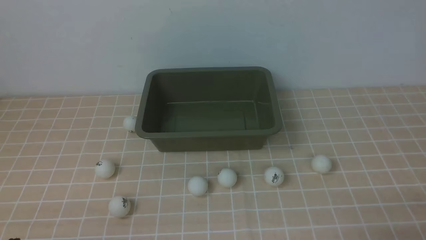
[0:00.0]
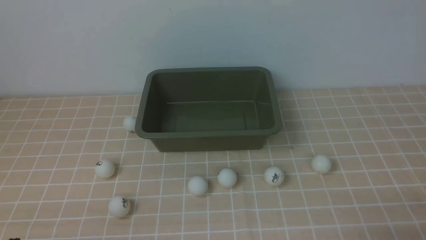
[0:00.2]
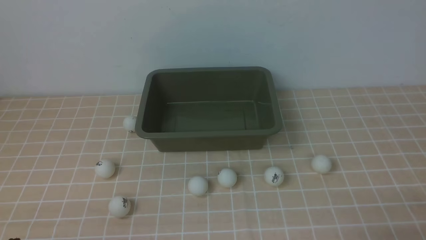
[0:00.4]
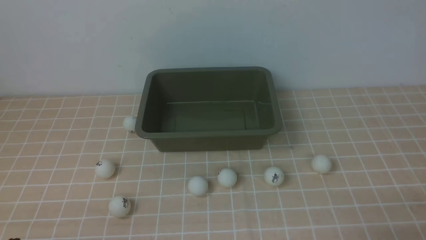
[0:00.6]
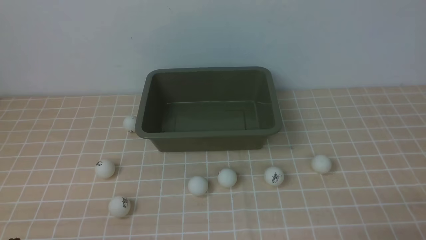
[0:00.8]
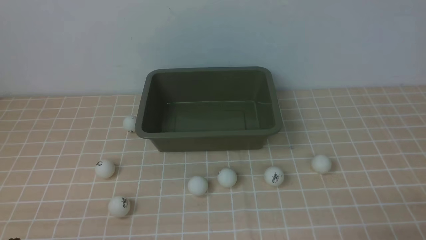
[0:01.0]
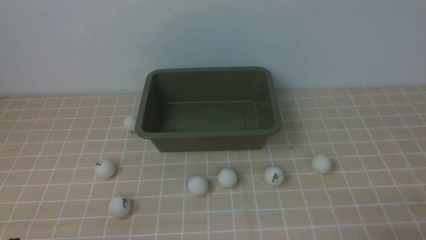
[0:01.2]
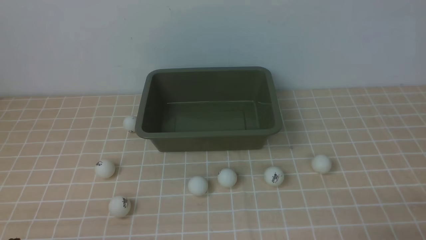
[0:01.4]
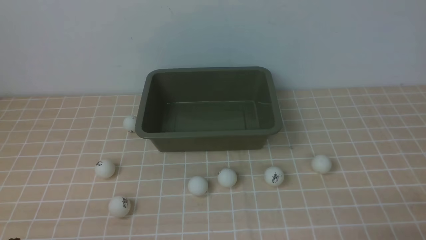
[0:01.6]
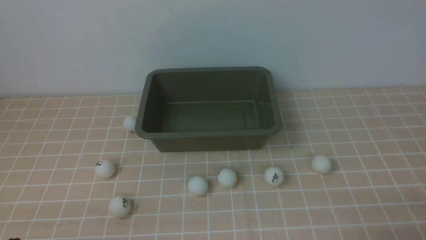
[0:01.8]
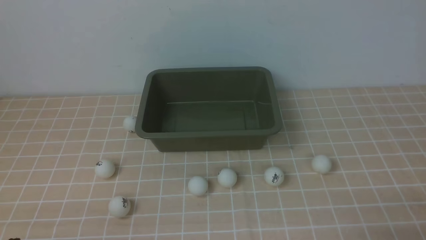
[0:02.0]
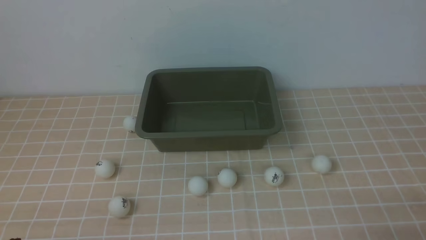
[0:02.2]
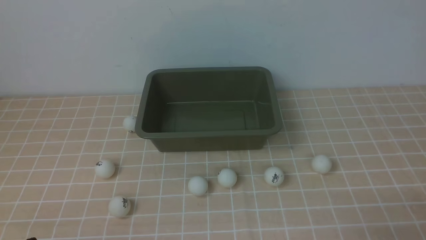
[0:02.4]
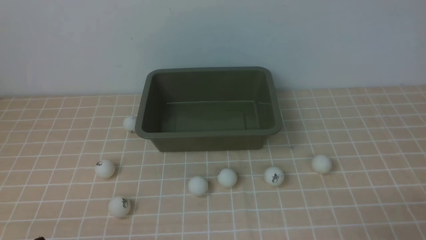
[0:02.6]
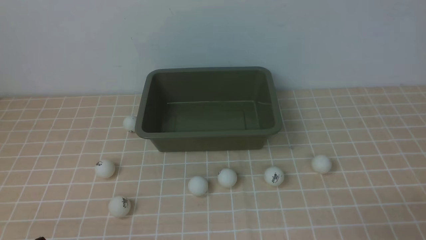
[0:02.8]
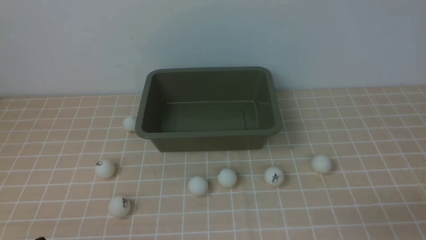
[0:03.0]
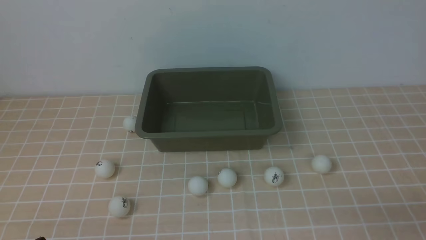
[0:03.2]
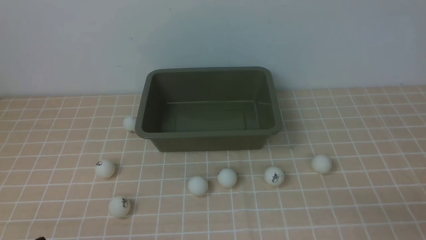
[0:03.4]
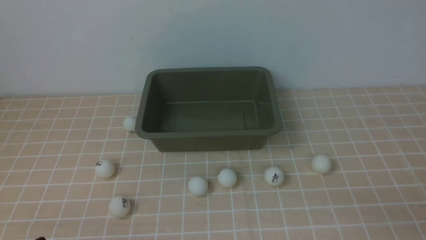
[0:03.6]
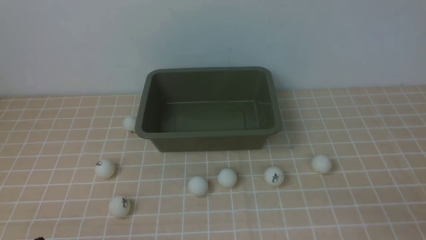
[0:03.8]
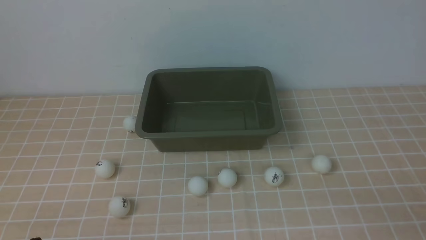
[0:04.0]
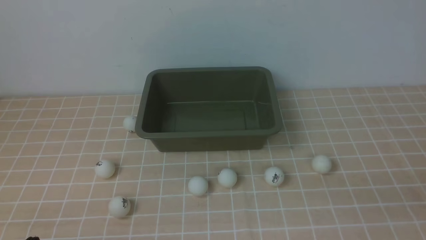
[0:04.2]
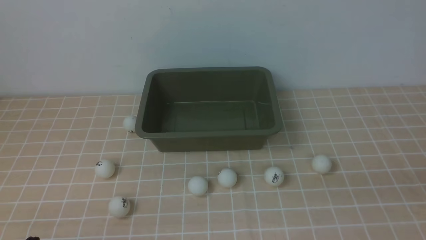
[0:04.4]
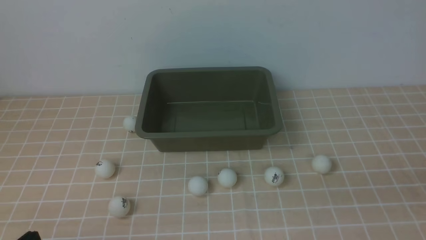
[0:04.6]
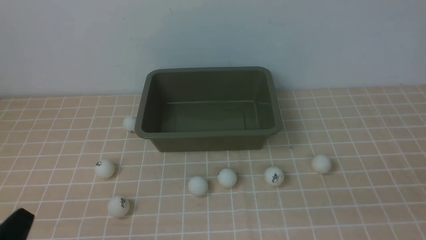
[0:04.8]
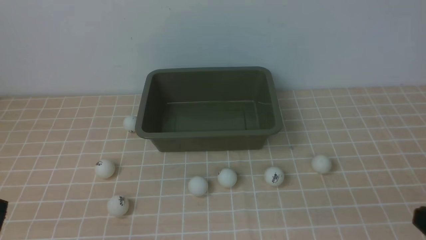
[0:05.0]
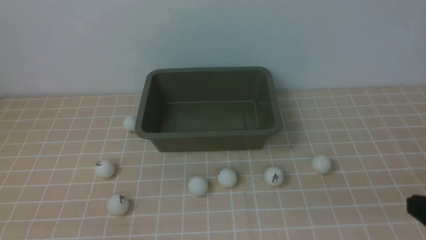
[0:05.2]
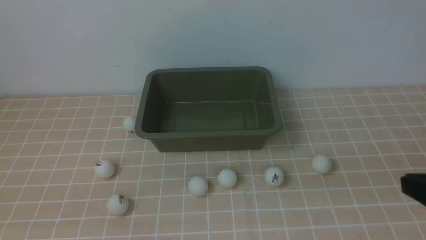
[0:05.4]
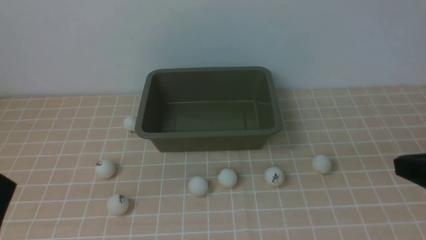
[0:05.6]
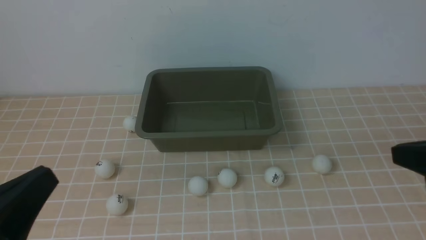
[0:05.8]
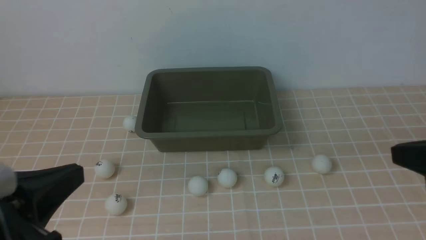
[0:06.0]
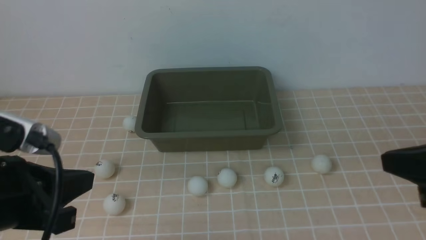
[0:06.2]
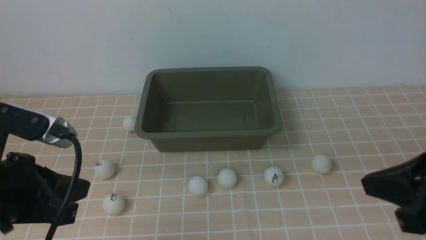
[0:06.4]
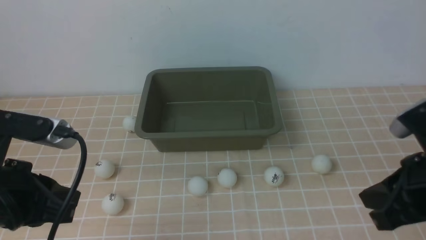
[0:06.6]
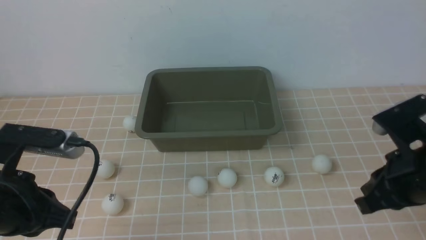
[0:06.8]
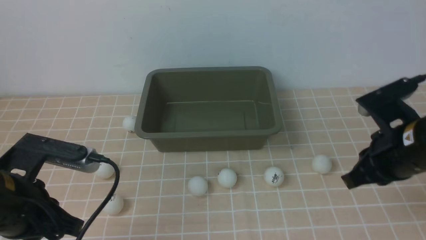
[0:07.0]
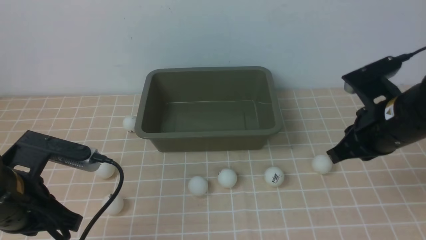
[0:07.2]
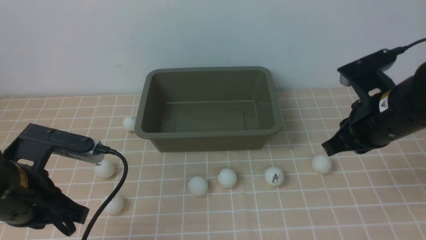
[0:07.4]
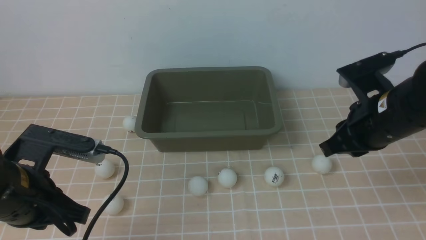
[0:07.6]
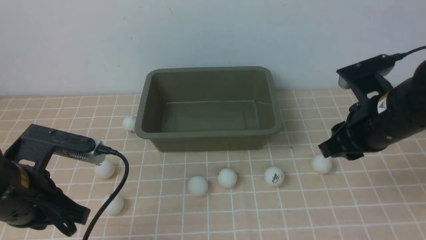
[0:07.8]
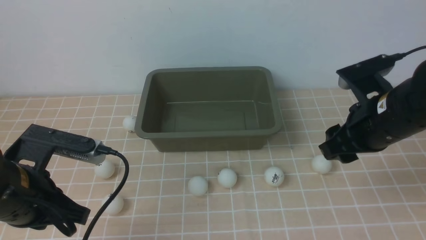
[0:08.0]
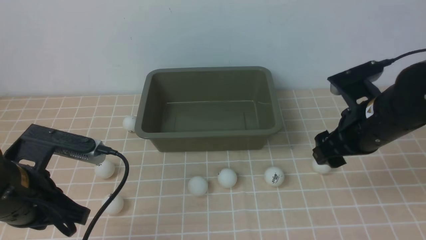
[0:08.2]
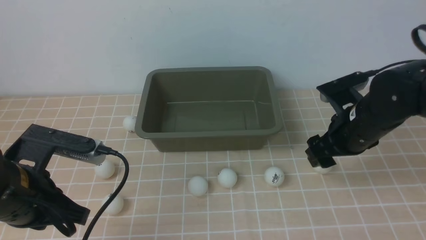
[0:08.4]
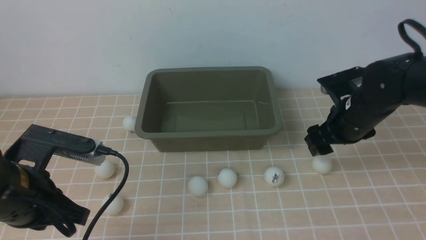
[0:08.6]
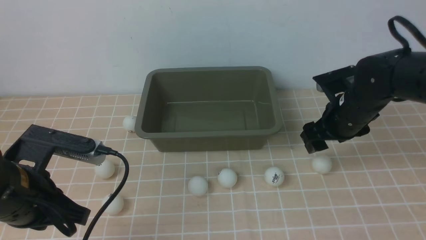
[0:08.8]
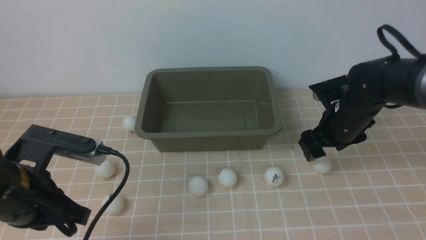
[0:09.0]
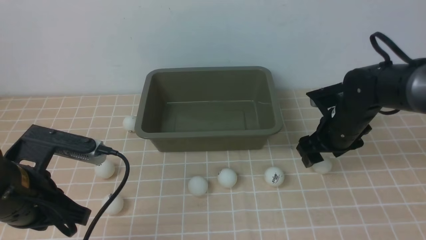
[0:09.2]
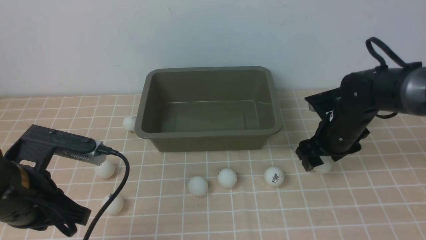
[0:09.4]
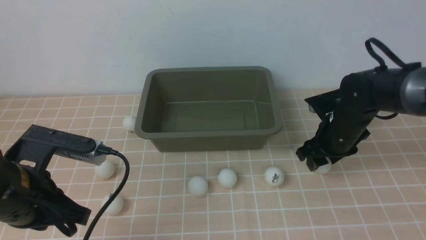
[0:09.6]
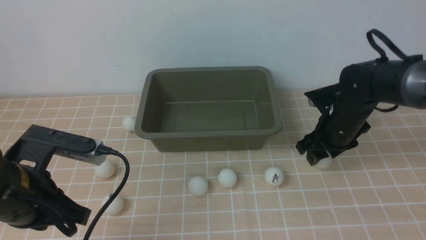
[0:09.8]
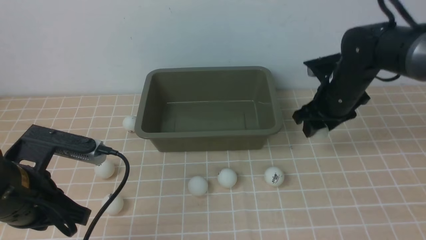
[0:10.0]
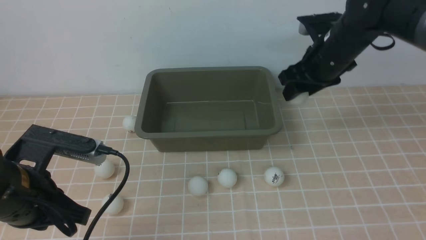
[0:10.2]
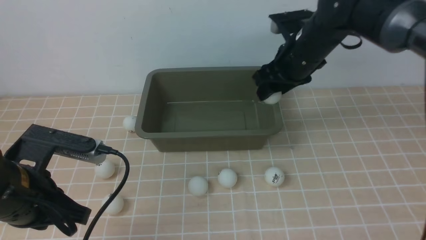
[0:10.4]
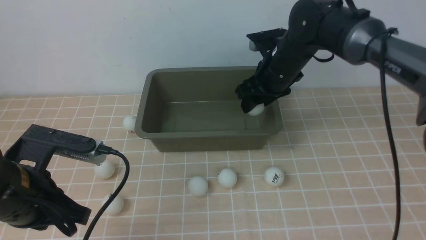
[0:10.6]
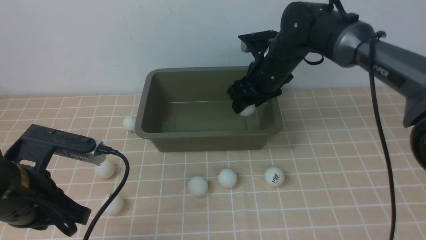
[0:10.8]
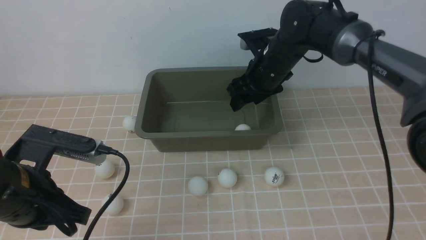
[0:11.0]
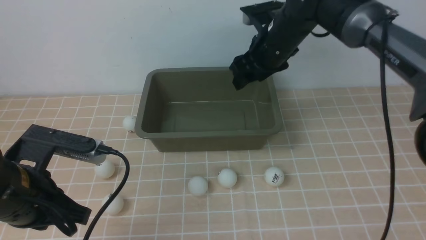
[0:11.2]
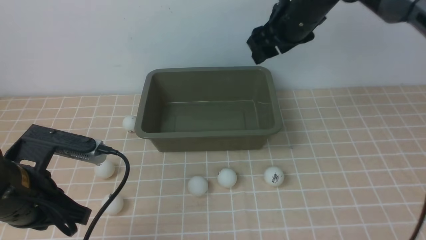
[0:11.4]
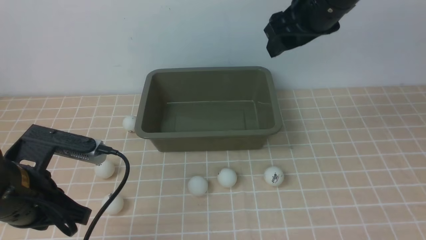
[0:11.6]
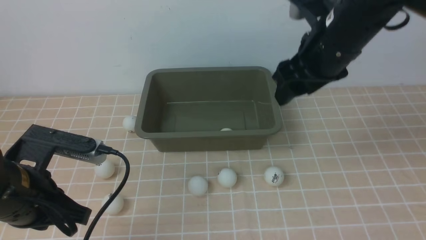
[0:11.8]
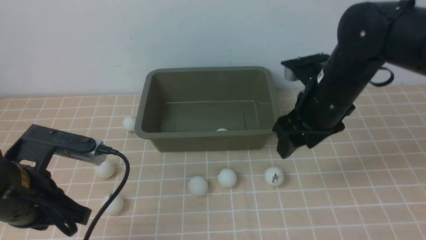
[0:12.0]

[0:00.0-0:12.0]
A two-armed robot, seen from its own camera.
Step, 0:00.0 to 0:10.0: use the right arm to clamp the table tennis ball closest to it.
Step, 0:10.2 to 0:11.4: use the right arm to put the table tennis ball into the box.
0:00.0 to 0:01.6: Both grippers stay put.
0:04.4 to 0:06.0: The right gripper goes approximately 10 cm forward and upward; the left gripper moves upward, about 15 cm.
0:06.0 to 0:07.6: The left gripper is displaced forward and downward by roughly 10 cm, while the right gripper shifts approximately 15 cm forward, downward and to the left.
0:07.6 to 0:09.0: The right gripper goes some 15 cm forward and downward, and opens.
0:09.0 to 0:10.4: The right gripper shifts about 15 cm upward, to the left and forward.
0:10.4 to 0:12.0: The right gripper is displaced backward by approximately 10 cm, and reaches some 10 cm upward, then returns.

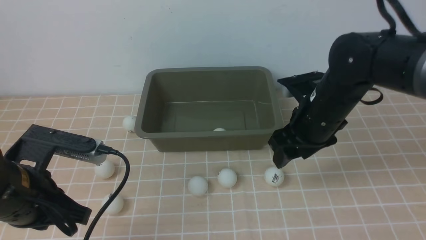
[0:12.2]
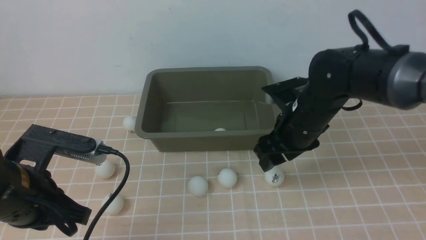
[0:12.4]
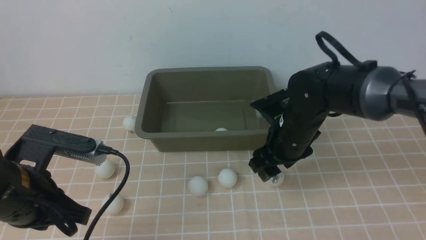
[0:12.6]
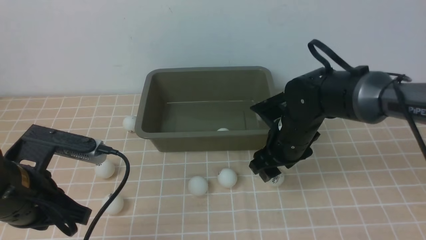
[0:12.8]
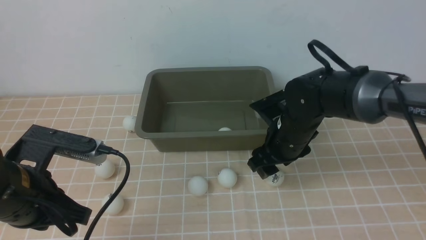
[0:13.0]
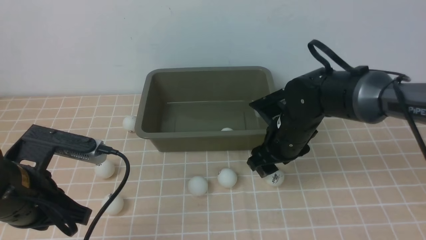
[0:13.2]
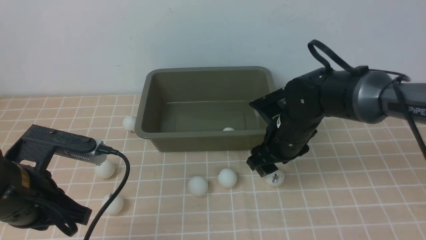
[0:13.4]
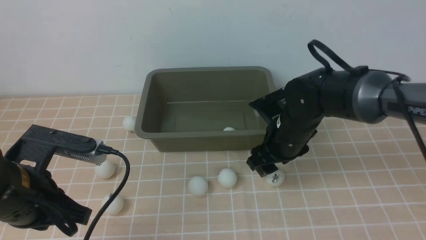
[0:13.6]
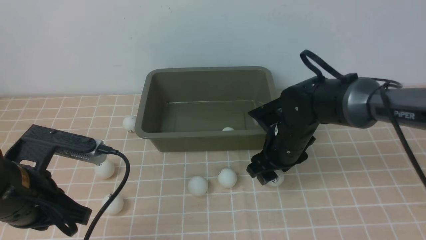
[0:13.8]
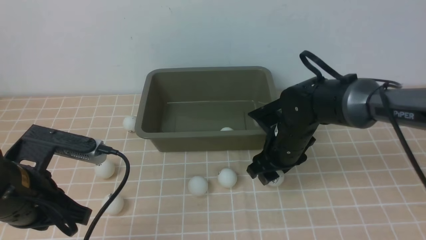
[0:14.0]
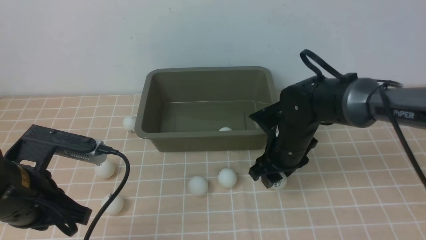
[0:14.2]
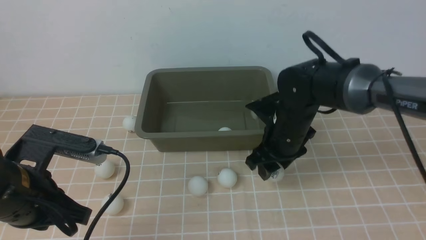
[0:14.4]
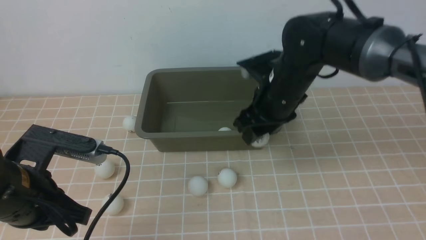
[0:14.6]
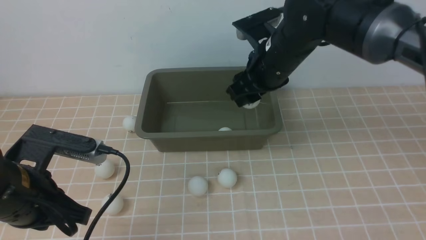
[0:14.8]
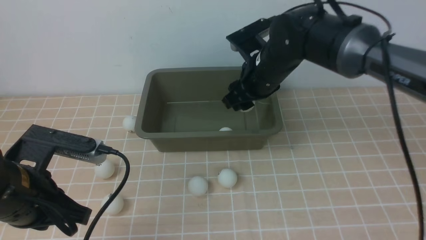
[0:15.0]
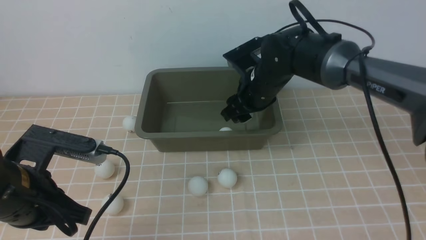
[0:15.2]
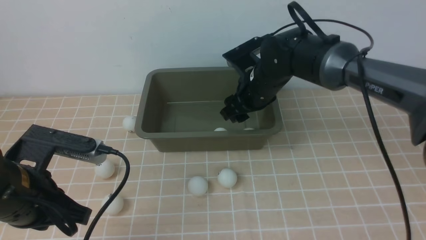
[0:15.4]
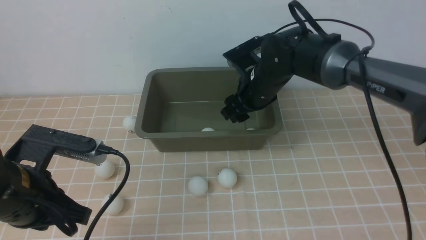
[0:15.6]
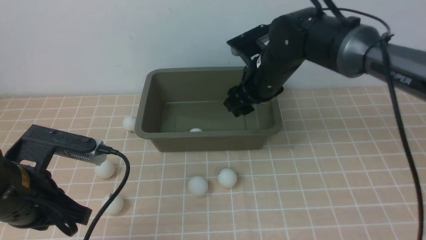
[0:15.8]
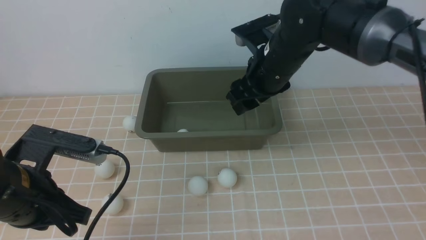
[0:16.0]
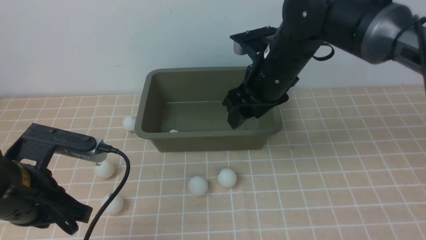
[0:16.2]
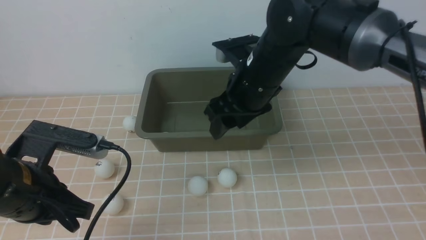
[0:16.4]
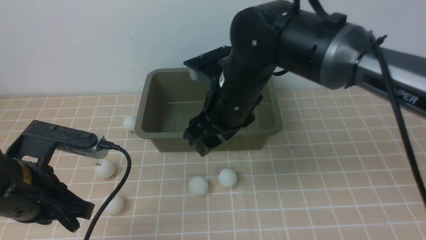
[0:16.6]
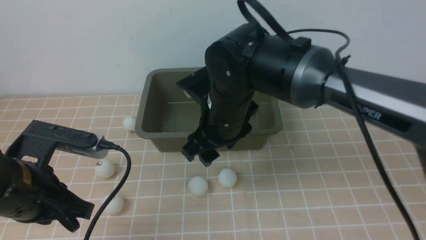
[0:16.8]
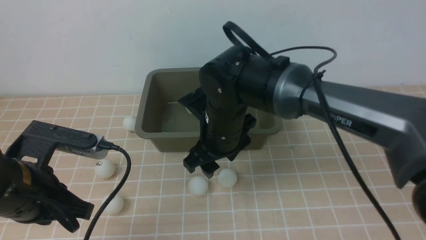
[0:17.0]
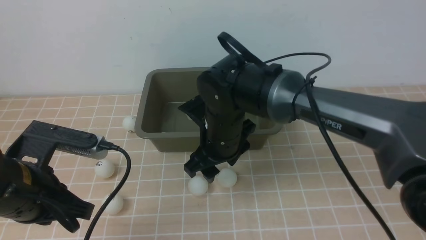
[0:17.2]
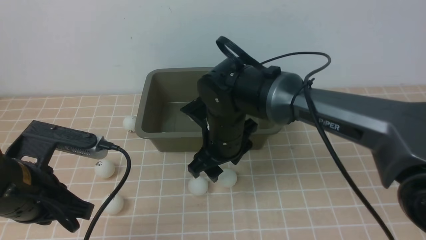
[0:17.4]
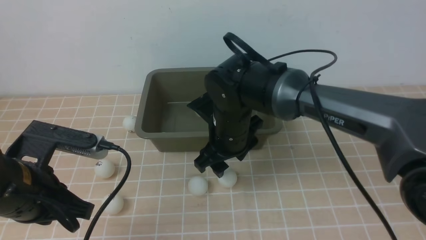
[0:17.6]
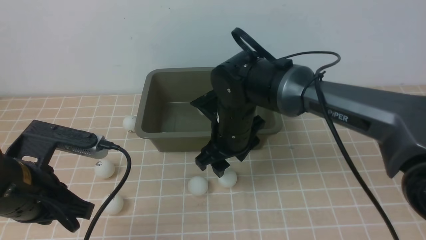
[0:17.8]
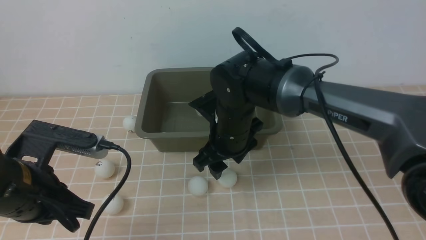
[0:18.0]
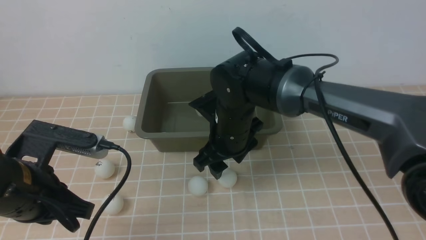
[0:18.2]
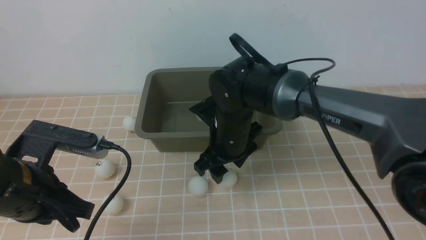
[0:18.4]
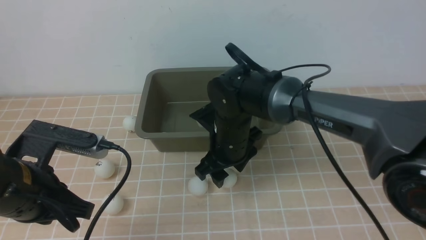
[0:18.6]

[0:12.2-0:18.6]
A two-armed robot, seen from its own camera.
Step, 0:12.2 to 0:14.4: use the right arm to clamp the table tennis ball closest to it.
Step, 0:14.6 to 0:15.8: use the right arm to put the table tennis ball into the box.
0:12.2 to 0:13.8: The right gripper shifts some 5 cm downward.
0:13.8 to 0:15.4: The right gripper travels forward and upward by roughly 10 cm.
0:15.4 to 0:17.0: The right gripper travels backward and to the left by approximately 10 cm.
0:17.0 to 0:18.6: The grippers move only a little.
